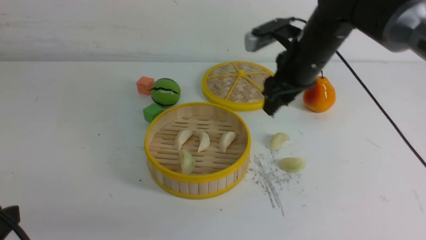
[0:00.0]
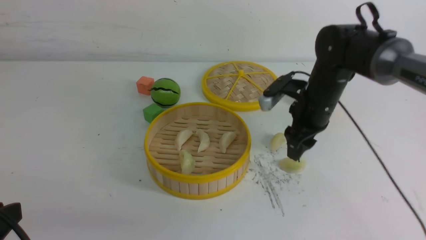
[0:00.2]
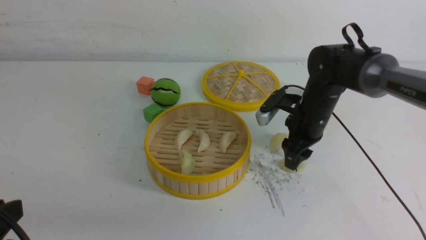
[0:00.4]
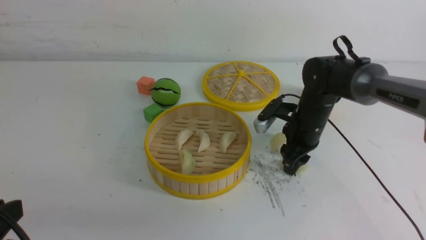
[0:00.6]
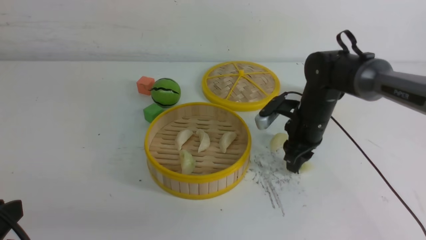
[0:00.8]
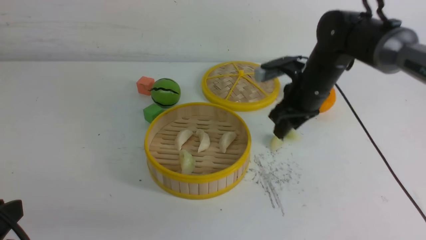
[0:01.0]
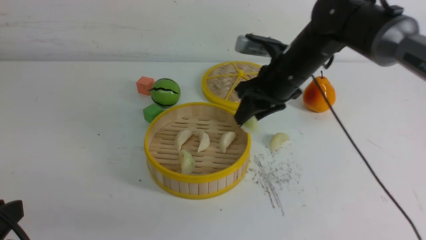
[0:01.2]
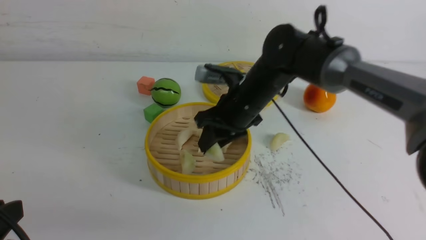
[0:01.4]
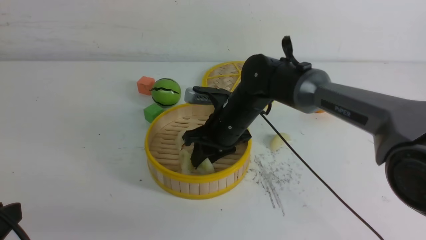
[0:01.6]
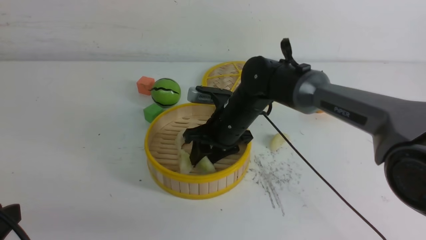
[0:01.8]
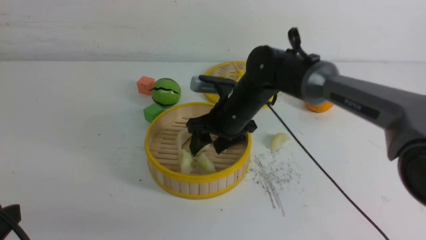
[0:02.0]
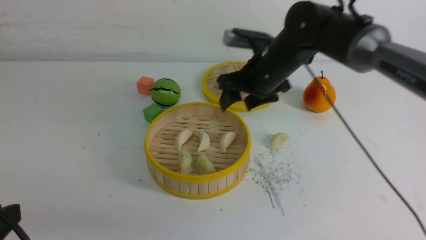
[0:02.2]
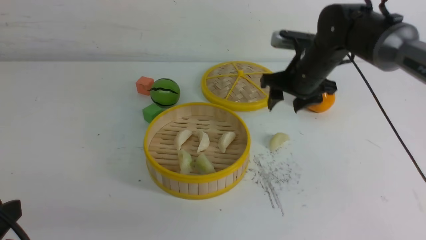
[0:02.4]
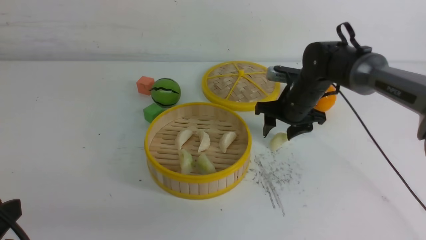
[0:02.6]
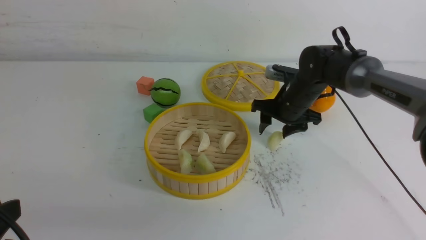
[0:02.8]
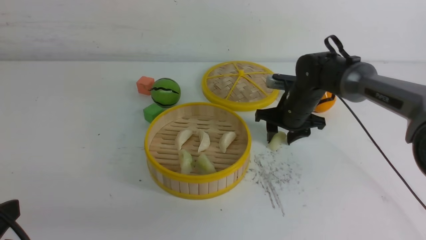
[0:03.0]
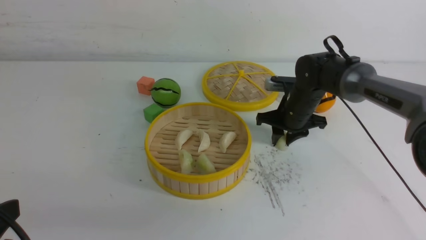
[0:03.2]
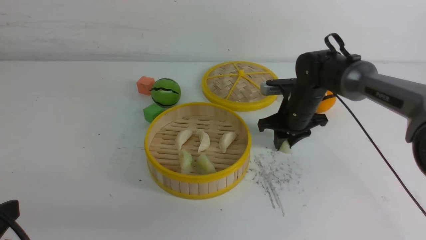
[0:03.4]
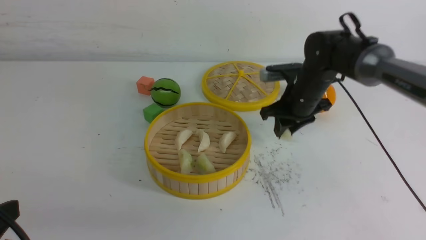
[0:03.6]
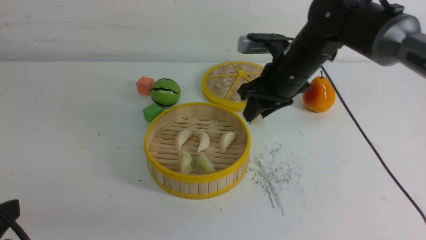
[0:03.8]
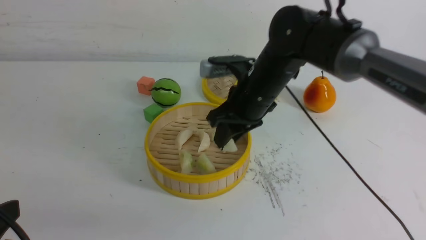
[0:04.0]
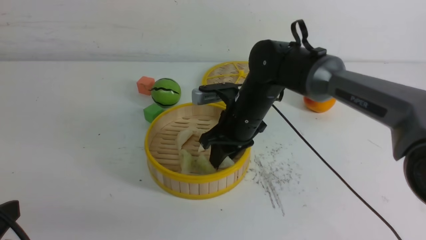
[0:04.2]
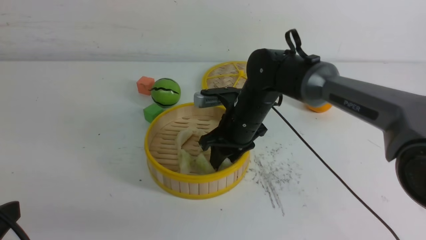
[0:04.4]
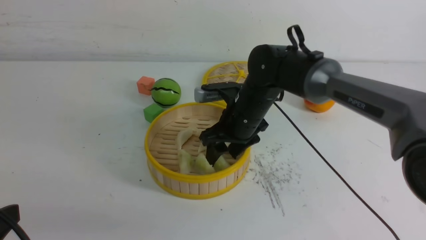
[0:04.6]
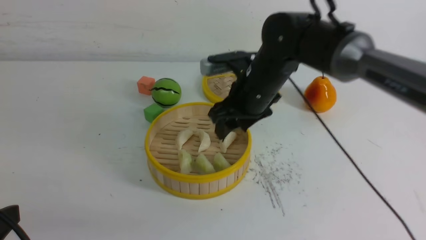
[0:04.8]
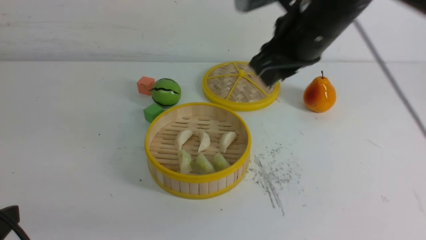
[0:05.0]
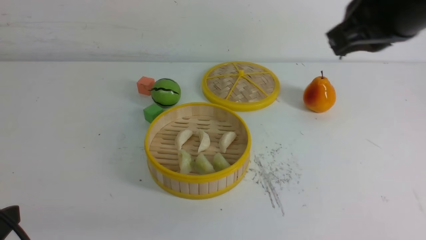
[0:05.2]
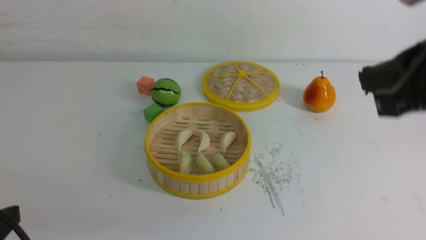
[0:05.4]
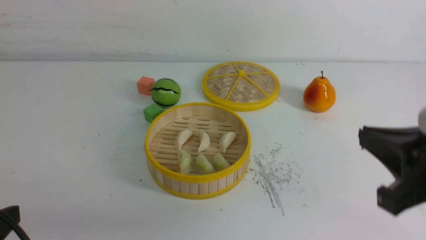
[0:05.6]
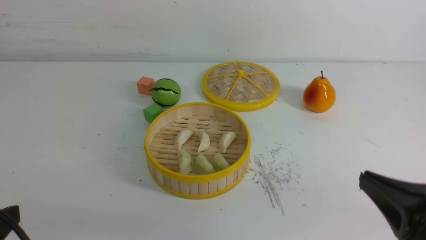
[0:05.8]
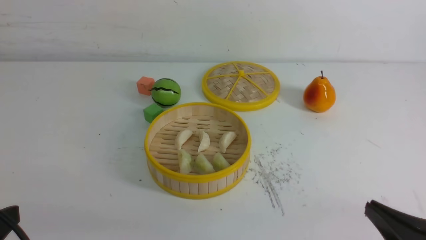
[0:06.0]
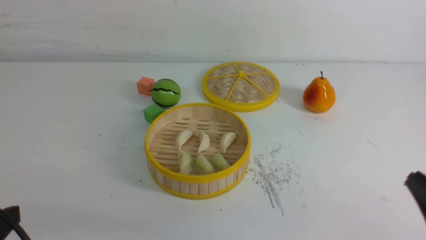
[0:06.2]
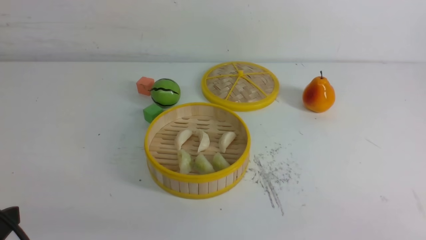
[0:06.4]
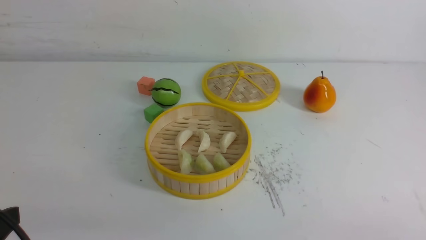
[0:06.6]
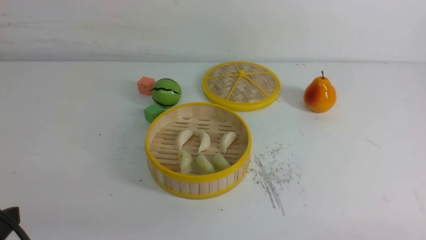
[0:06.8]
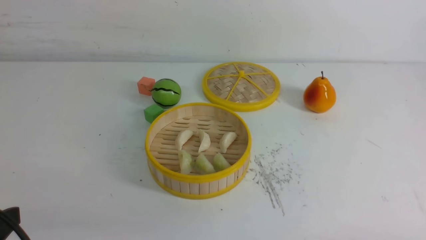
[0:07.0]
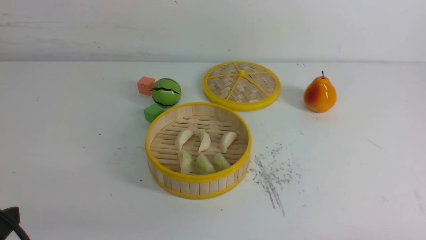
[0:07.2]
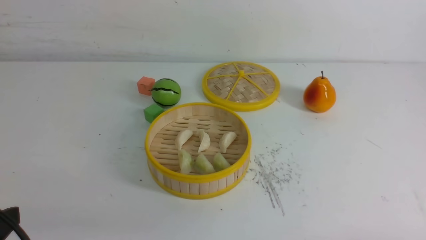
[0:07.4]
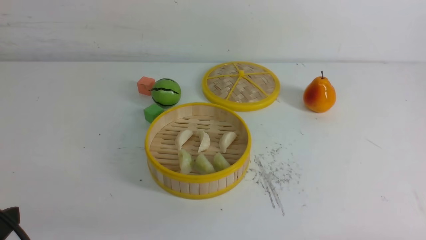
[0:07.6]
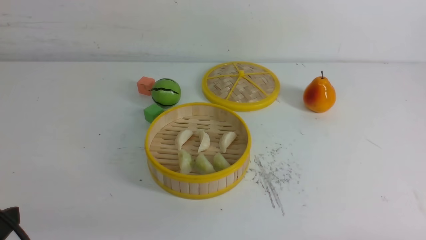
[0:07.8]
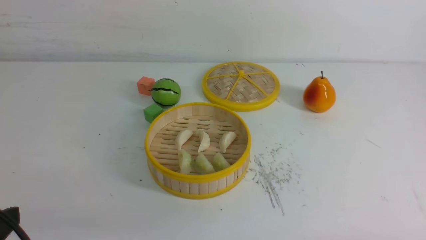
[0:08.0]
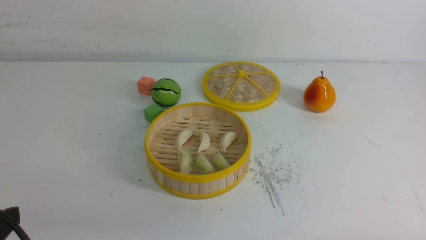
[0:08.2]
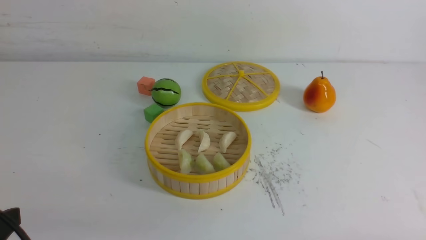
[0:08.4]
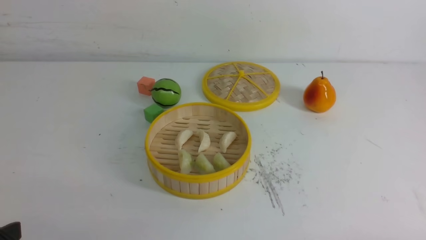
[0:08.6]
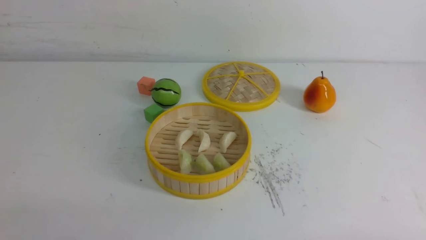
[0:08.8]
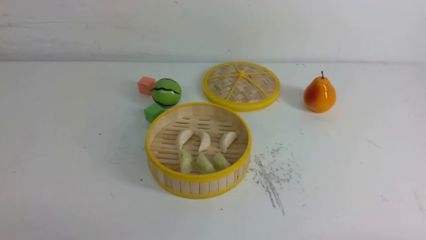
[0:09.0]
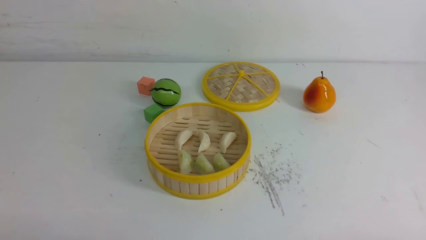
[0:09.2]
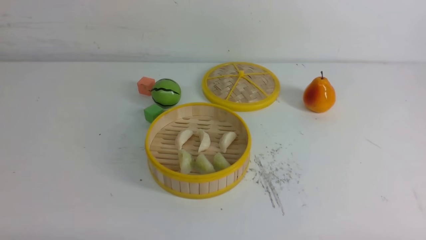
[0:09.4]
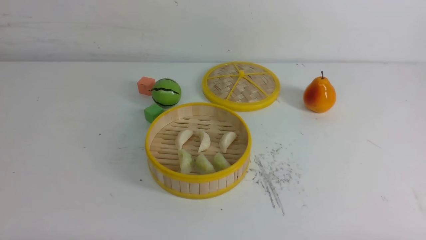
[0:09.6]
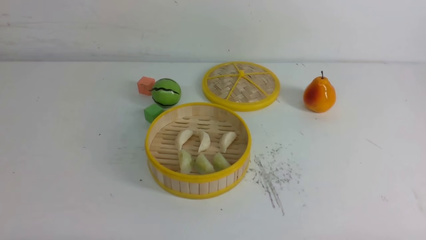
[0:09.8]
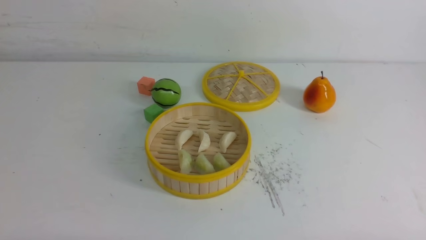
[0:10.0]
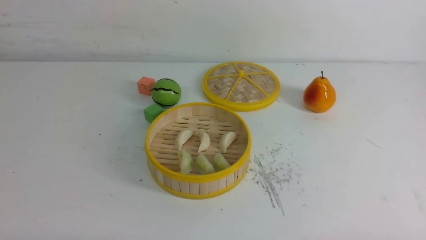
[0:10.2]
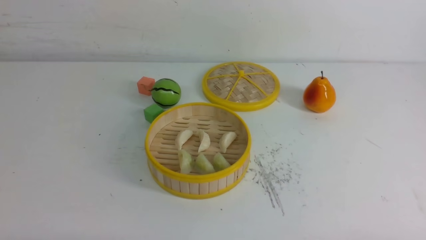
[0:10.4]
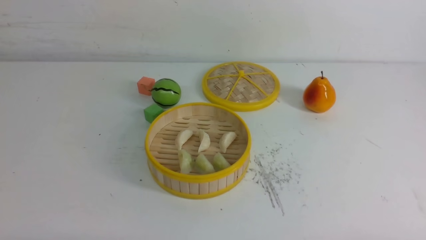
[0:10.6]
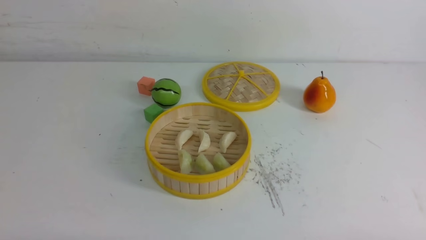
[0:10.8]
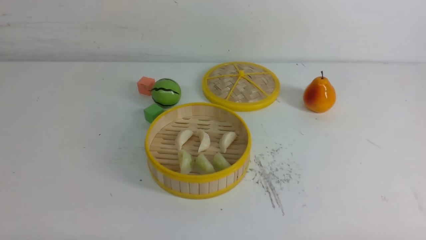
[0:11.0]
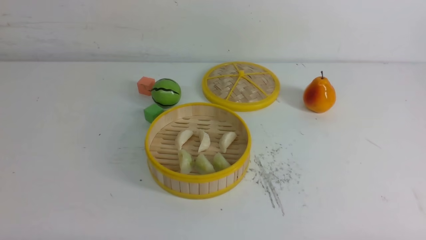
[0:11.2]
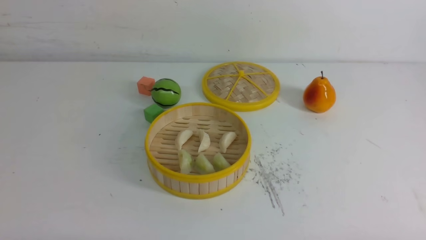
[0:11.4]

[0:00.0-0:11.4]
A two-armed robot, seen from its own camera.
Task of the whole recording: put the dumplings into the steamer on the white table.
Step, 0:00.6 to 0:01.8: use the right arm to put the dumpling into the steamer.
Step, 0:02.0 to 0:03.2: use the right arm to grab a dumpling.
Step, 0:03.4 to 0:04.6: use the right arm to put the dumpling into the steamer.
0:00.0 to 0:01.4: The right gripper shifts approximately 5 cm to the left.
0:01.4 to 0:02.8: The right gripper goes some 15 cm to the right, forward and downward, and opens.
0:02.8 to 0:04.2: The right gripper moves to the left and backward, some 15 cm, and closes its fingers.
0:04.2 to 0:05.6: The right gripper shifts roughly 30 cm backward and to the right, and closes up.
0:05.6 to 0:07.2: The right gripper moves downward, backward and to the right, about 20 cm.
0:10.0 to 0:11.4: Neither gripper changes place.
